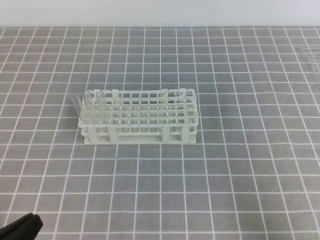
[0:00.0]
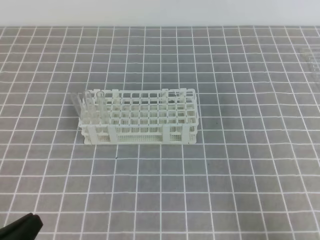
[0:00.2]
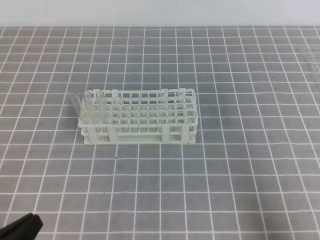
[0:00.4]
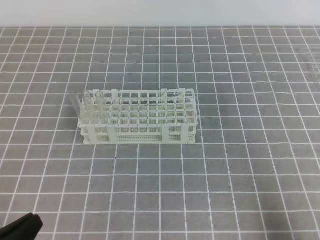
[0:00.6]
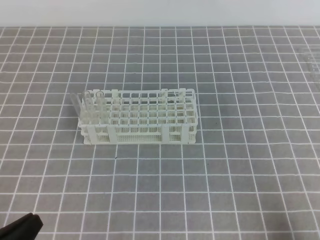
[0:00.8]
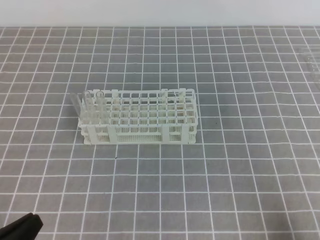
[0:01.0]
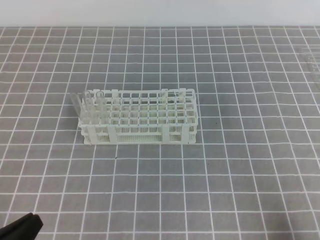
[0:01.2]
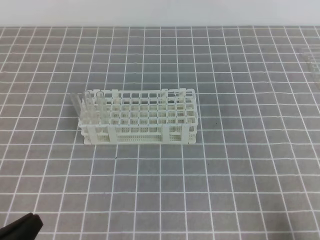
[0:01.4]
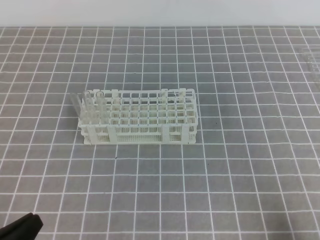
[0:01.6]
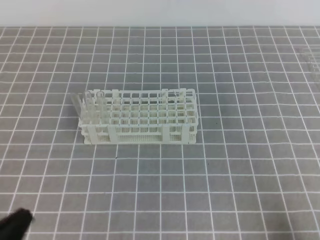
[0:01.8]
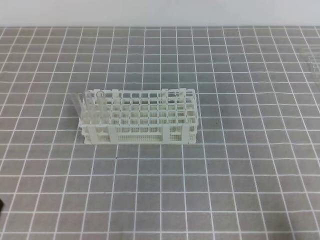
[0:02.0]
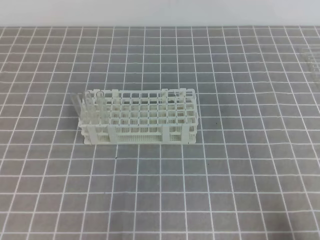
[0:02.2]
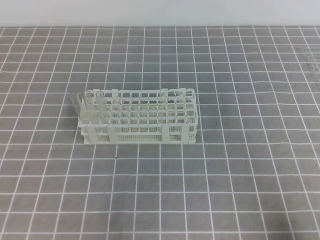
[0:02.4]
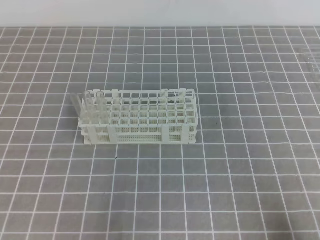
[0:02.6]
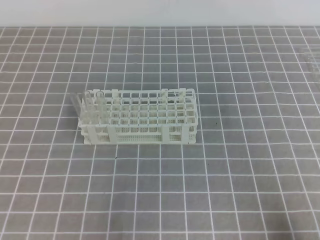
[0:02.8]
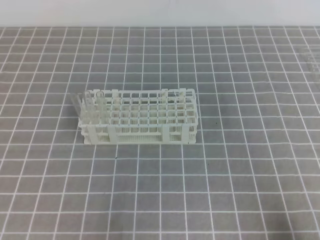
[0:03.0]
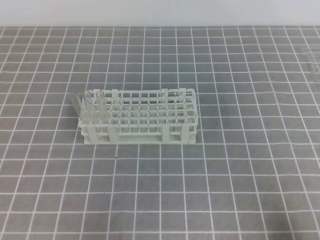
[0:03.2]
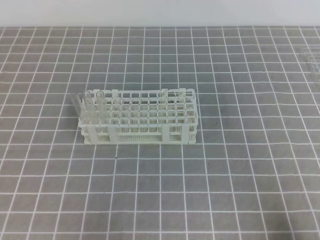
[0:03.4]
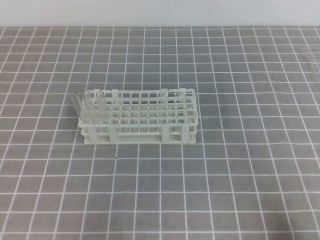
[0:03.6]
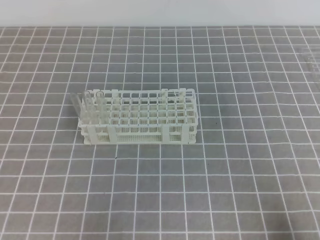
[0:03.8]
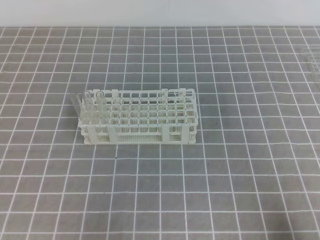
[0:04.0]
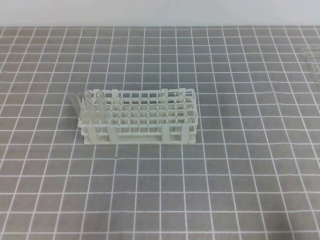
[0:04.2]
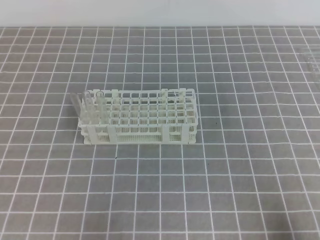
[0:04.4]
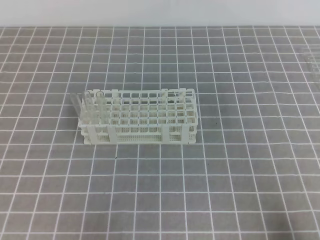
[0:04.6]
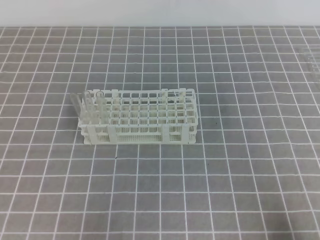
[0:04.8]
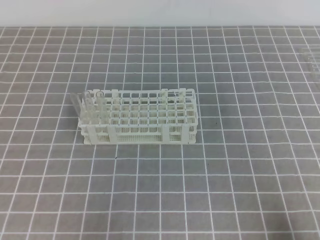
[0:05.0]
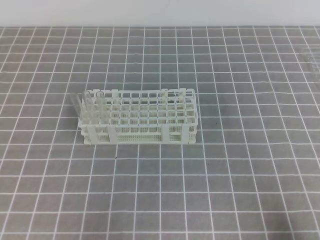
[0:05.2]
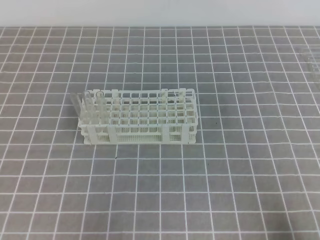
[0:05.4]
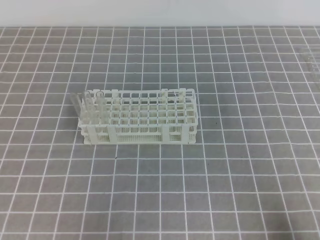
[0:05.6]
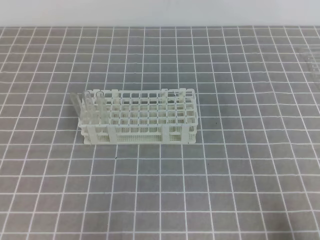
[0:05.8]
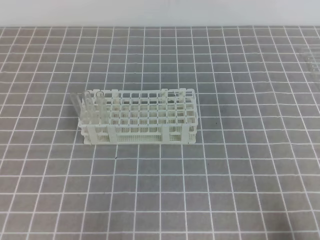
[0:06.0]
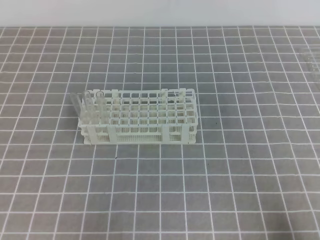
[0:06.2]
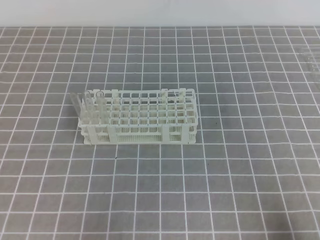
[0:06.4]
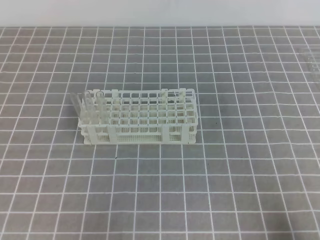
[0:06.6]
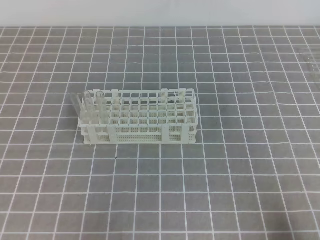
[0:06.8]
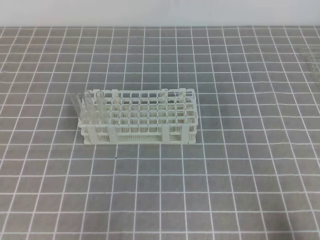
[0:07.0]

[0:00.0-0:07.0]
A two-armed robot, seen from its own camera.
0:04.2 to 0:07.0: Both grippers stay put.

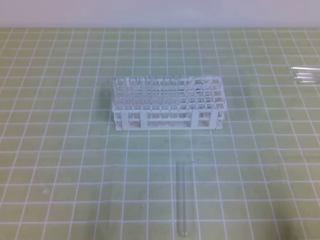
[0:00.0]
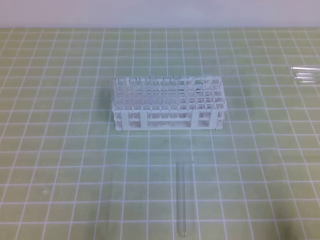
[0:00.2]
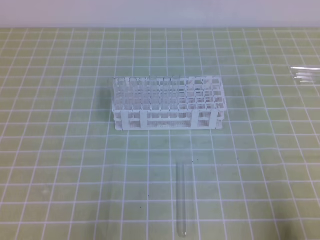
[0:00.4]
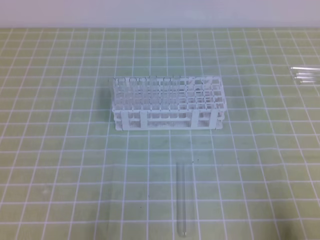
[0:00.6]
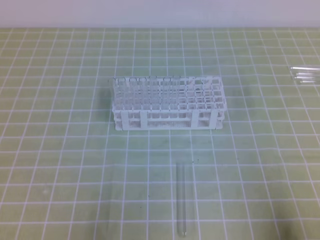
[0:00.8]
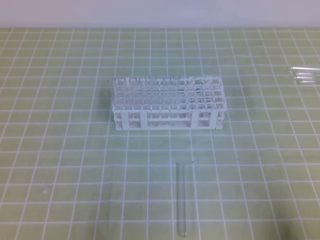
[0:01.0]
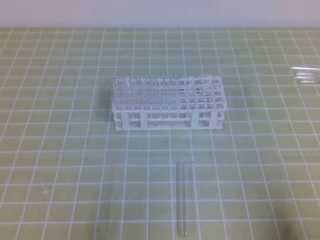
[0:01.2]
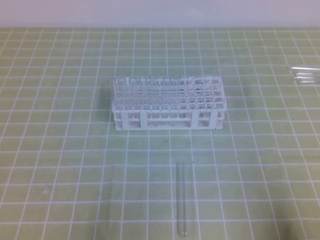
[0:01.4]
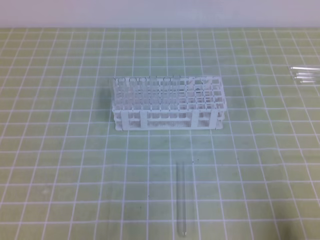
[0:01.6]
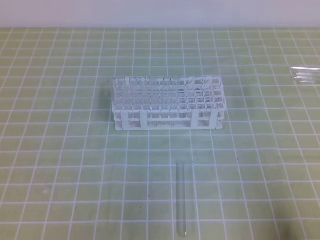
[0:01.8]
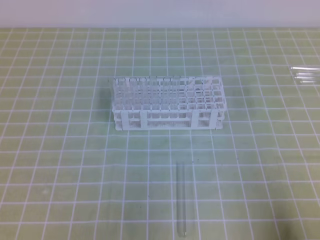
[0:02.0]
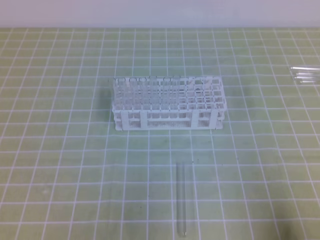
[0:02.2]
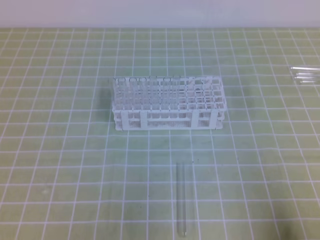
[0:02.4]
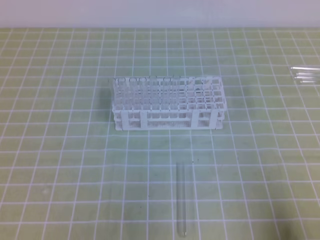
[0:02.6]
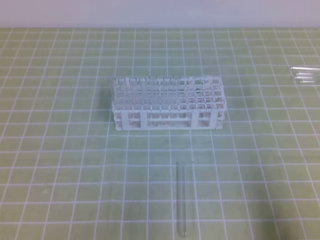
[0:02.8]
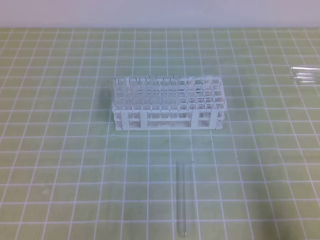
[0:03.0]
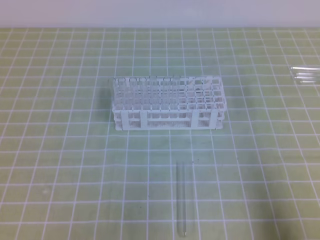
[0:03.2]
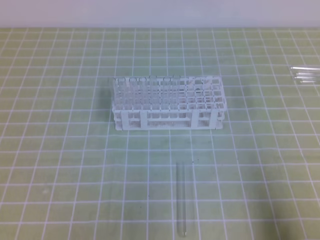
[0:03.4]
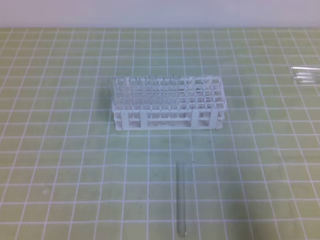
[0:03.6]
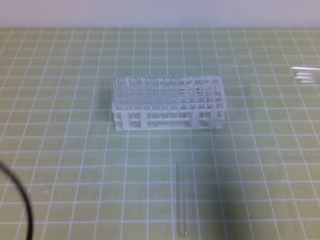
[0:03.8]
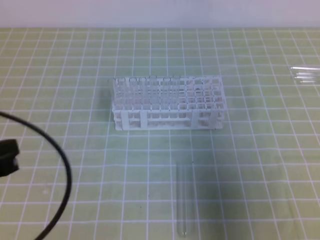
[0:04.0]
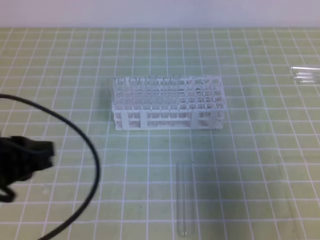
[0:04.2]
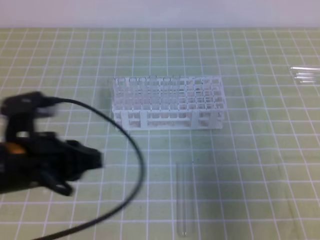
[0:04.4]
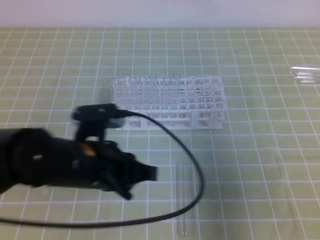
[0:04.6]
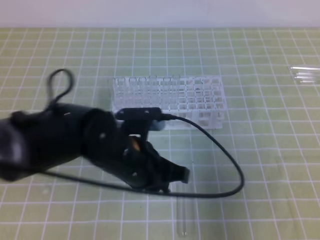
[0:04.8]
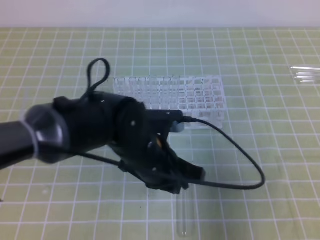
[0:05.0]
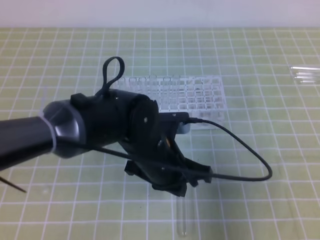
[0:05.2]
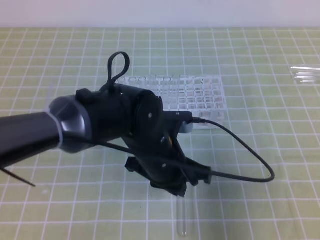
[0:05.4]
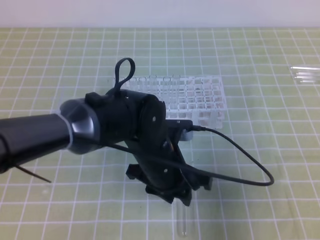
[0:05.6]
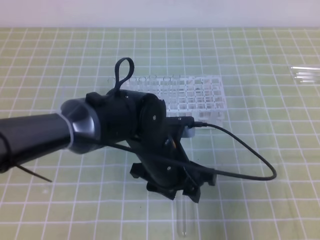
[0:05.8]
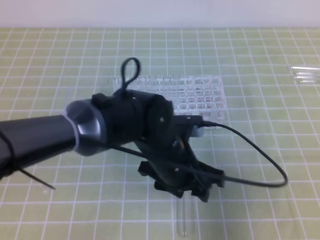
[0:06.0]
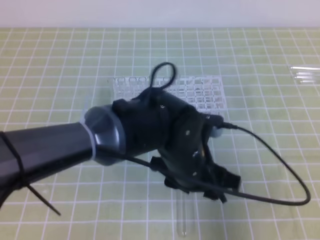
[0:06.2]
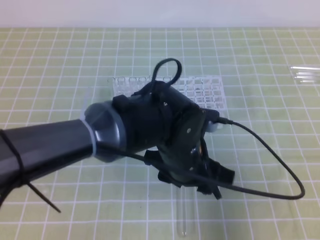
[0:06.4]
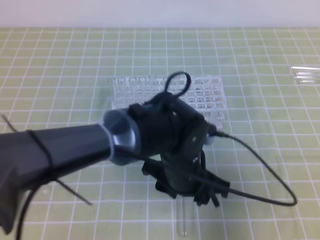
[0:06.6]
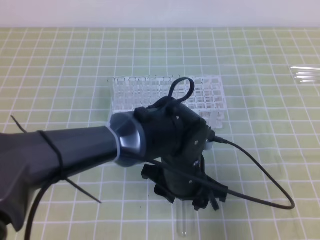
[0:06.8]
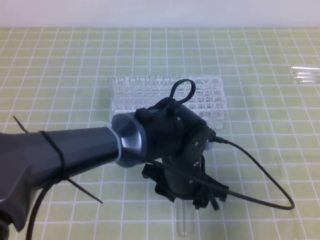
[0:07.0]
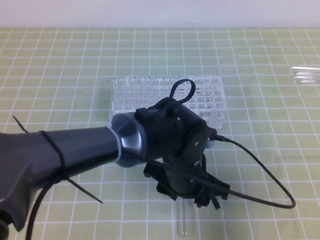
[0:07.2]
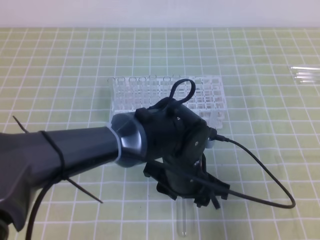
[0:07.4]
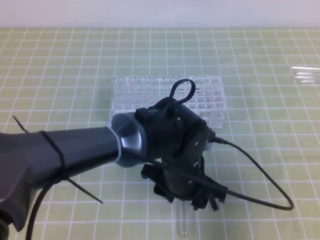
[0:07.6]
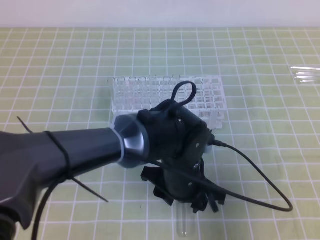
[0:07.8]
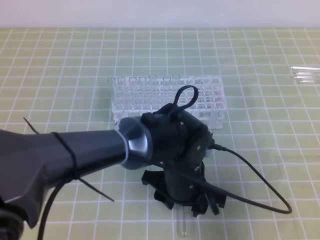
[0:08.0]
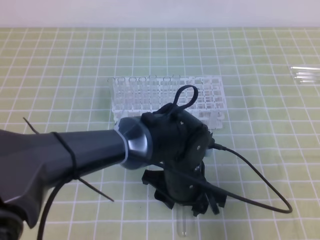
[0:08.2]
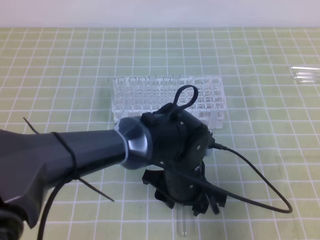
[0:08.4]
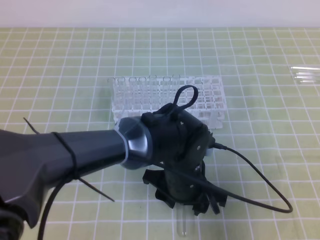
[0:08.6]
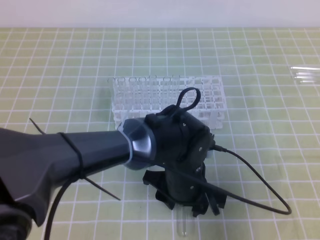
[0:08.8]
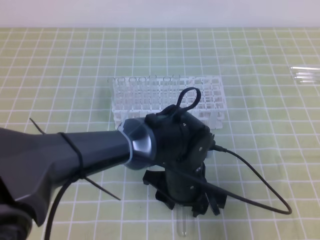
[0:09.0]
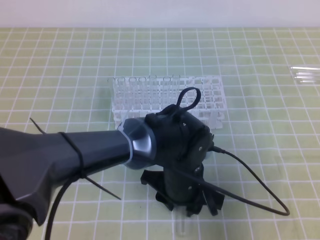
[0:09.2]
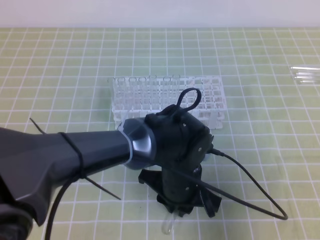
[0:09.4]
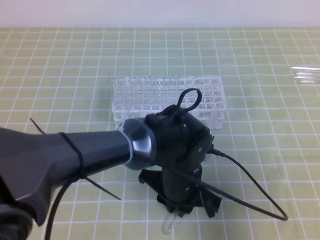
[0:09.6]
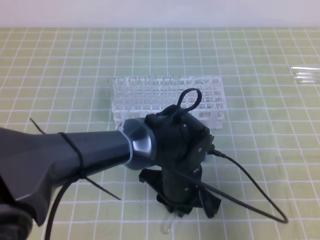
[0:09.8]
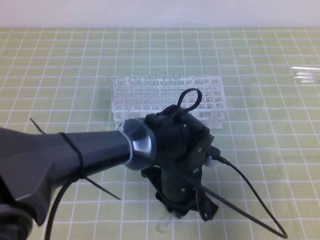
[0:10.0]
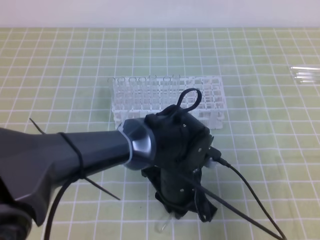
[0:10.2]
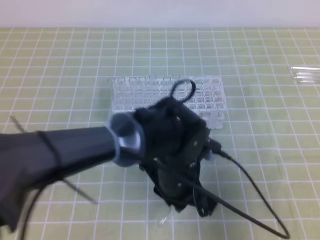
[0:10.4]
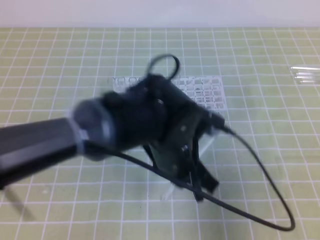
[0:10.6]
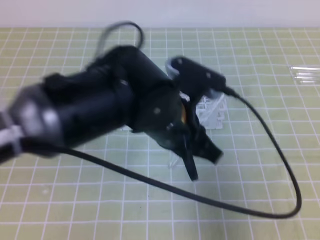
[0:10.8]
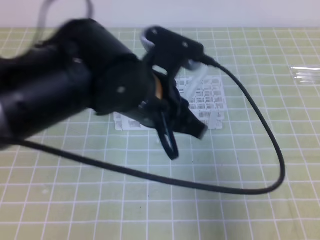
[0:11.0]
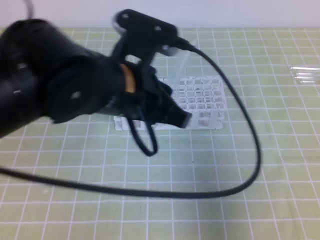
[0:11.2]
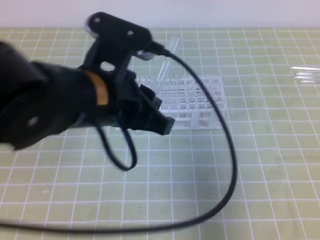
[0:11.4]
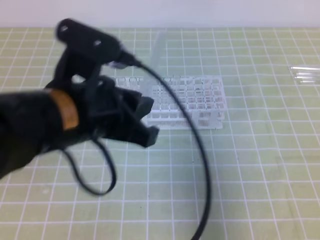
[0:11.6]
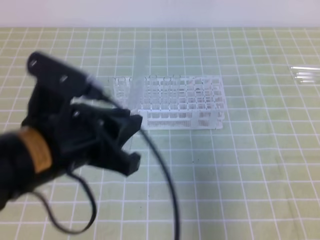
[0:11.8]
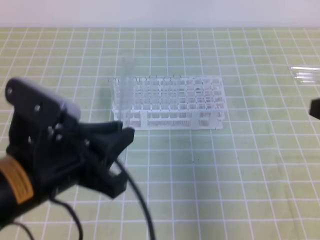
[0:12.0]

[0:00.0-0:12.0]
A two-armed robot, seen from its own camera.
0:03.0 to 0:04.4: The left gripper moves forward, to the right and upward, about 20 cm. The right gripper is displaced forward and upward by about 10 cm.
0:04.4 to 0:06.0: The left gripper heads to the right, covering some 20 cm, and opens its fingers.
0:07.6 to 0:09.0: There are only small adjustments of the grippers.
0:09.0 to 0:10.4: The left gripper closes.
0:10.4 to 0:12.0: The right gripper changes place by about 5 cm, while the left gripper shifts about 20 cm to the left, upward and backward.

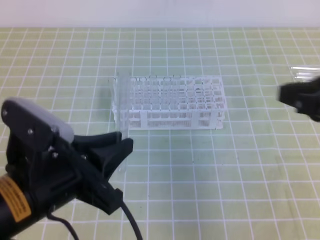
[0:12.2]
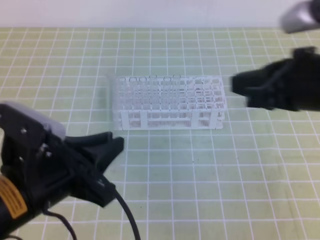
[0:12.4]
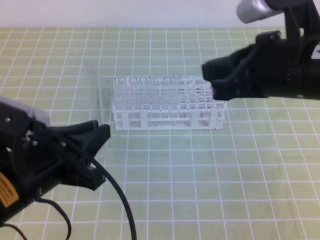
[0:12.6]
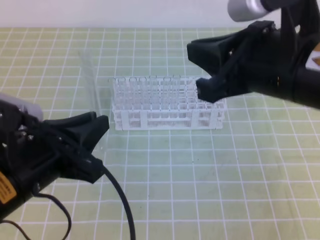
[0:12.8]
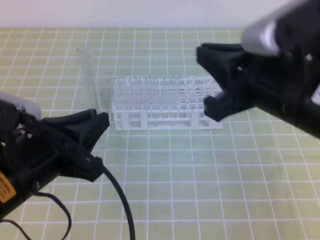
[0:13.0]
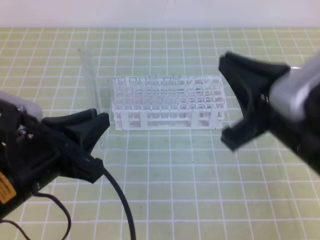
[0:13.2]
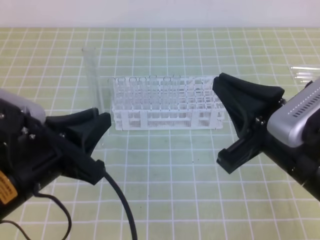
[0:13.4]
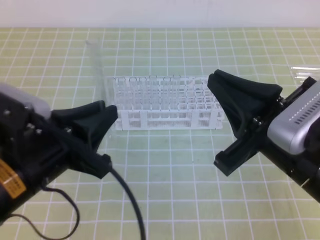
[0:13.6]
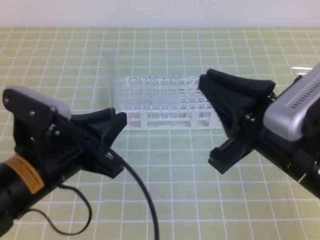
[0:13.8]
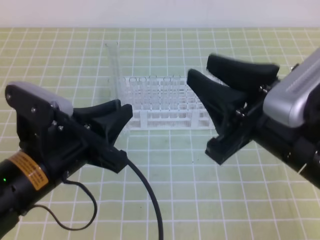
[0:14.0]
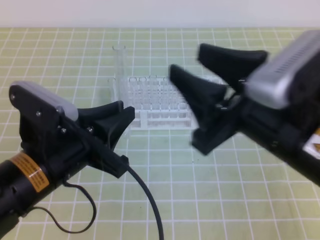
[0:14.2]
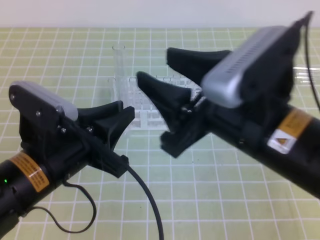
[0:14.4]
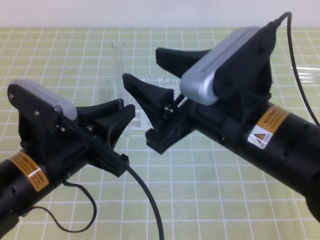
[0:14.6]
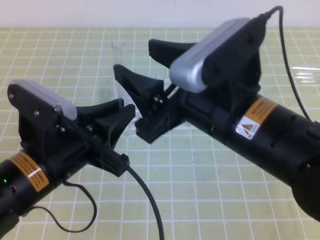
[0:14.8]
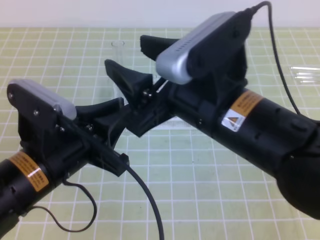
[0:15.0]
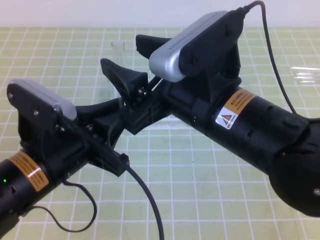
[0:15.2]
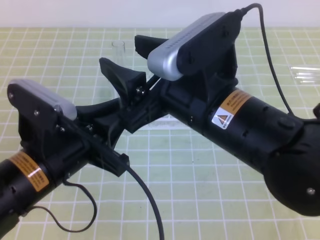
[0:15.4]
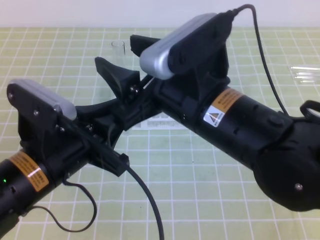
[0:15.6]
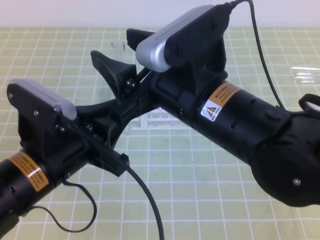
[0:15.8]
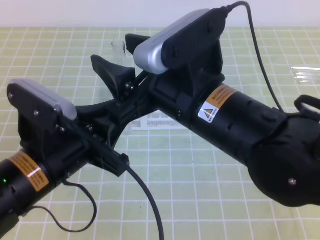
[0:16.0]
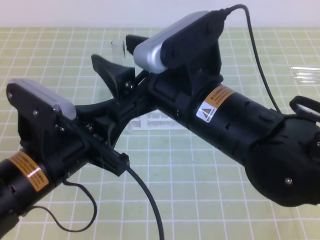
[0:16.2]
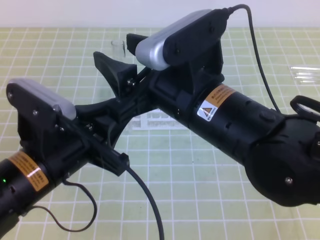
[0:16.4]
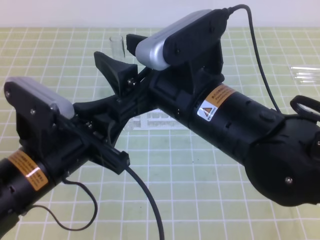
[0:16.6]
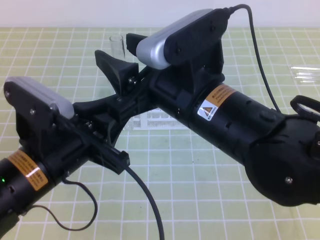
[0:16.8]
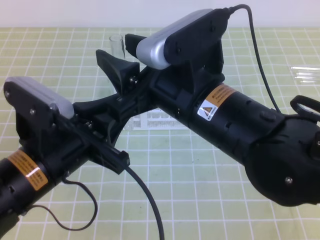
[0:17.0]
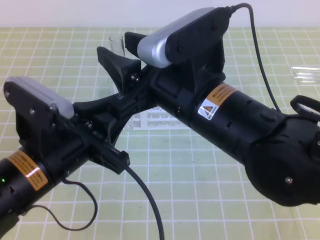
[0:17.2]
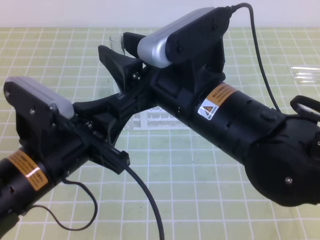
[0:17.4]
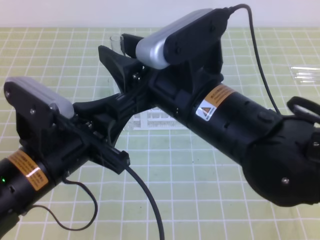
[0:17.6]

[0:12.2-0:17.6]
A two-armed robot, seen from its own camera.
0:12.2 to 0:13.6: The right gripper is displaced to the left by about 10 cm.
0:13.6 to 0:15.0: The right gripper is displaced to the left by roughly 10 cm, and opens its fingers.
0:15.0 to 0:16.2: The grippers move only a little.
0:16.2 to 0:17.6: The right gripper closes.
